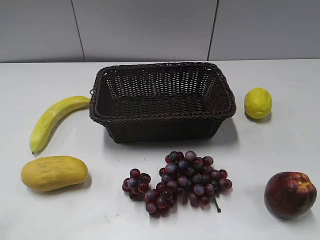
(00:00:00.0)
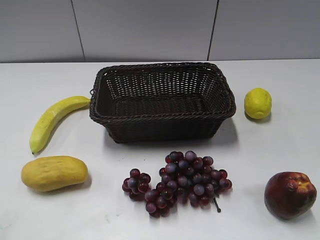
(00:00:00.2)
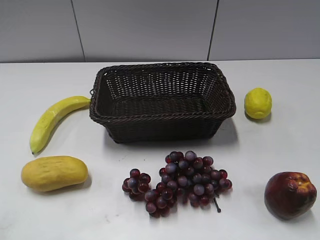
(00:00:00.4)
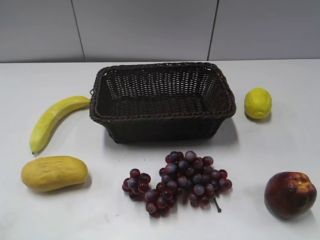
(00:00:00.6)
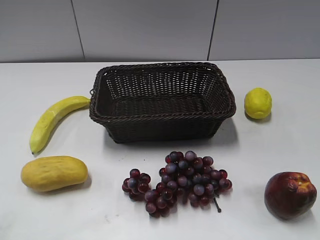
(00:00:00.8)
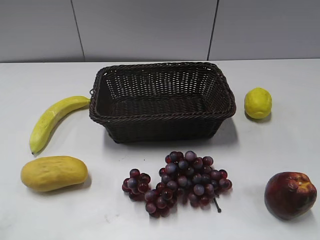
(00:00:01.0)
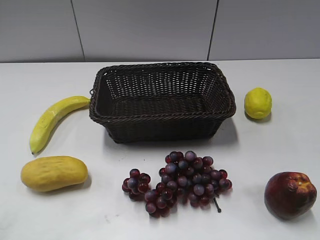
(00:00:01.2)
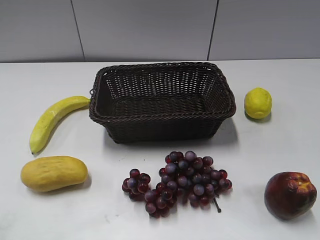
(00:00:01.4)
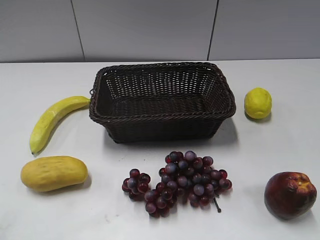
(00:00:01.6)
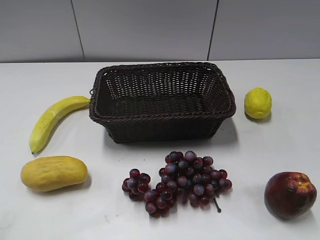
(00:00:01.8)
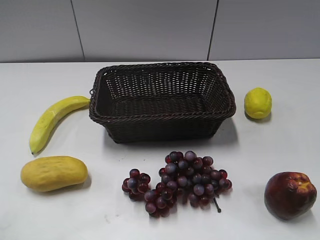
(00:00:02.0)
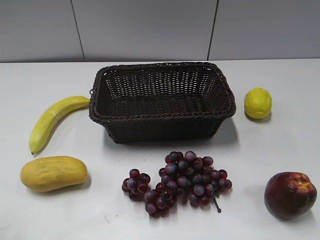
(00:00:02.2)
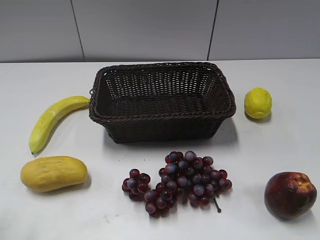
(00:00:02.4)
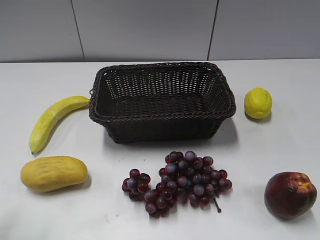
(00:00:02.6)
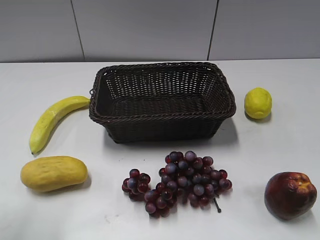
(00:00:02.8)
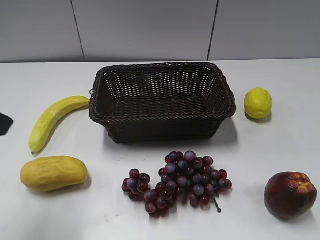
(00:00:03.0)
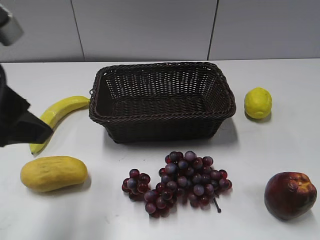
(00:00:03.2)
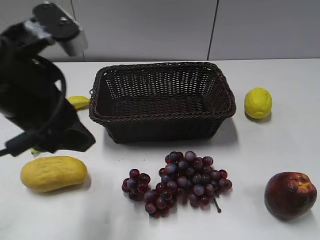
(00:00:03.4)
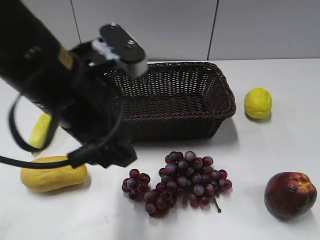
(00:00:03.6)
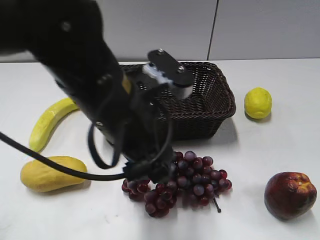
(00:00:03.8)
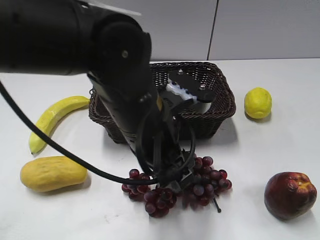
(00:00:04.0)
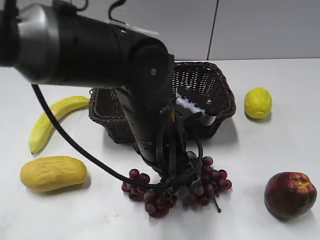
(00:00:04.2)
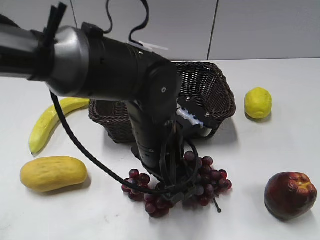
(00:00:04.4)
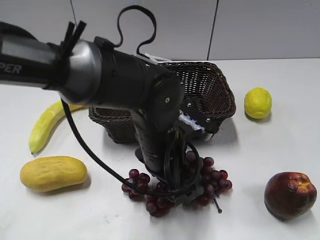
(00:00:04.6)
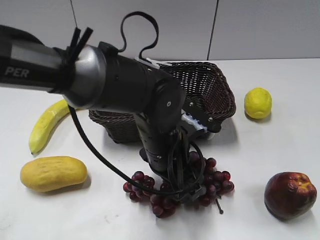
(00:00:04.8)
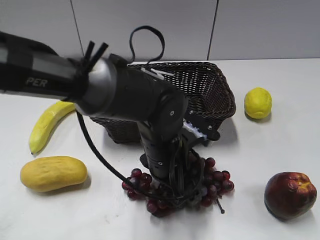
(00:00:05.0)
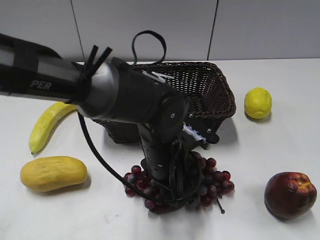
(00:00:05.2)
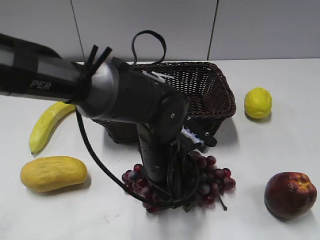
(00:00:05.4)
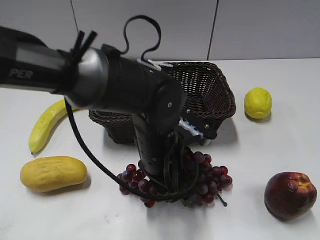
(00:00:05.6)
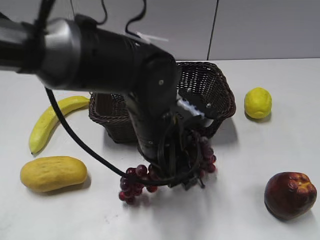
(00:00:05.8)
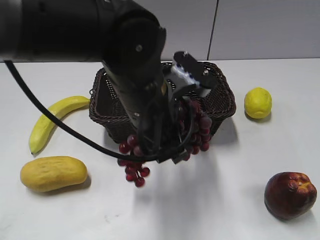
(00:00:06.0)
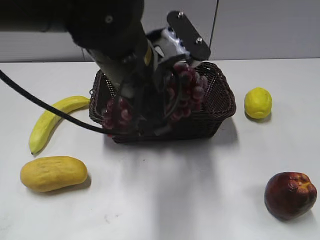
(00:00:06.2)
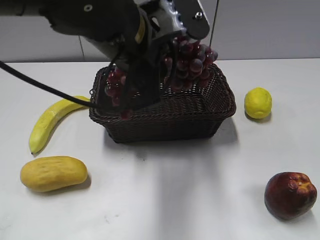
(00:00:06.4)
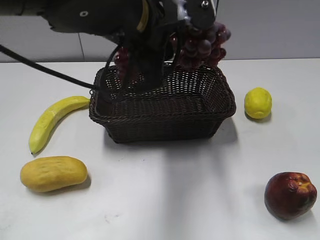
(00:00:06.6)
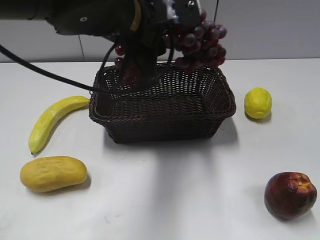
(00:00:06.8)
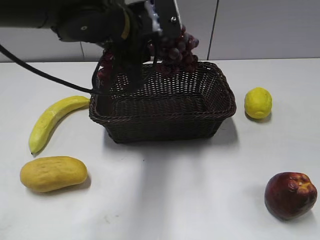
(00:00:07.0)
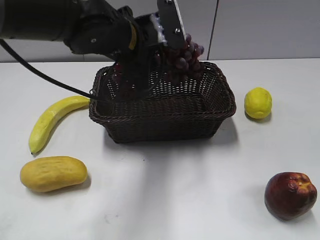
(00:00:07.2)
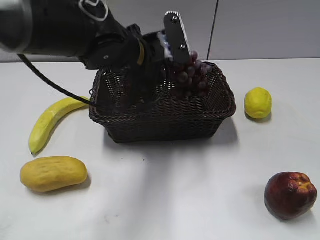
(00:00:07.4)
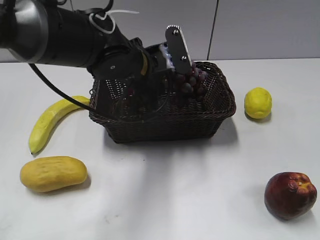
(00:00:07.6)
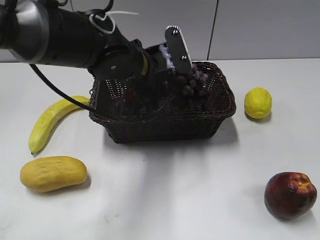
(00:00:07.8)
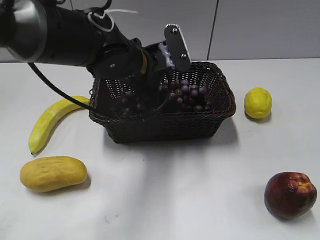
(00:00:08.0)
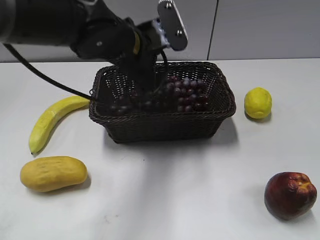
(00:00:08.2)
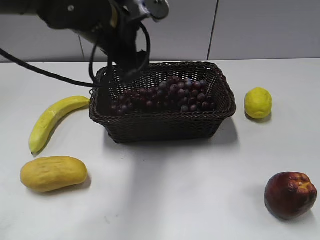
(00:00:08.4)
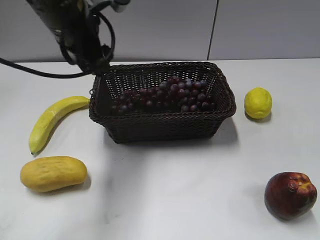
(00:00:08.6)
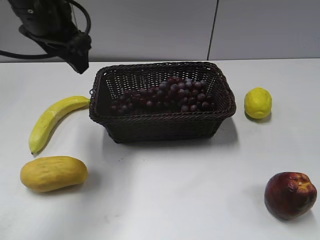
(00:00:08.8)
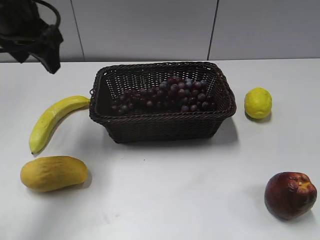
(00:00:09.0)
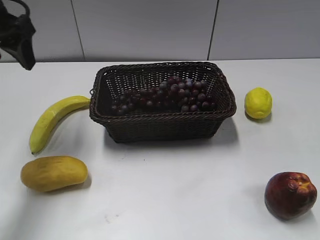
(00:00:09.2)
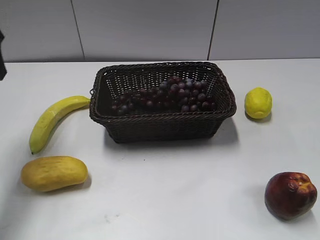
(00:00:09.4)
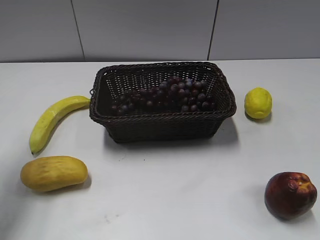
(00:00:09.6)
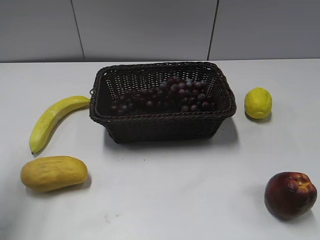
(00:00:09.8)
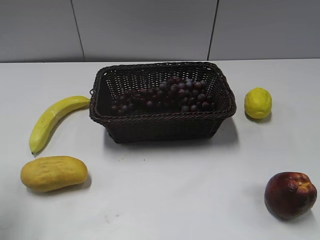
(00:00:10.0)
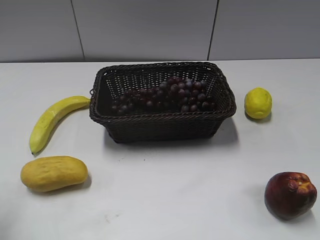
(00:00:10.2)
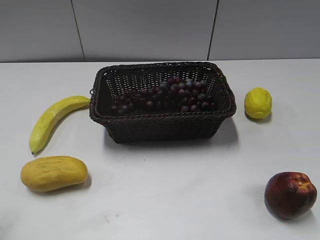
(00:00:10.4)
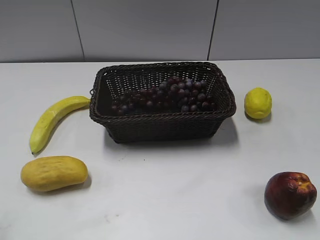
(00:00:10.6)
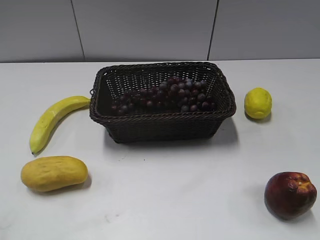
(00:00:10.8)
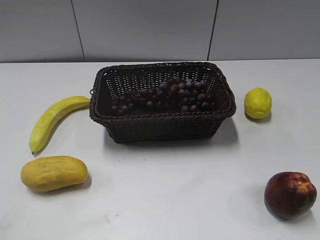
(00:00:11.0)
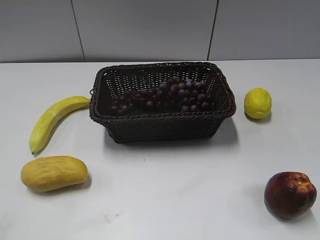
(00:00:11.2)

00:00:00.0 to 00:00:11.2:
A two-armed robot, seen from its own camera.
Step, 00:00:03.0 to 00:00:05.2: Grasp the grape with left gripper.
Step, 00:00:05.4 to 00:00:08.0: Place the grape in the basket with left gripper.
00:00:01.6 to 00:00:03.2: The left gripper is displaced forward and to the right by some 20 cm.
00:00:03.2 to 00:00:04.8: The left gripper travels to the right and downward by about 25 cm.
00:00:04.8 to 00:00:06.4: The left gripper goes about 15 cm upward, and closes its fingers.
00:00:06.4 to 00:00:08.0: The left gripper shifts roughly 15 cm downward and forward, and opens up.
00:00:08.0 to 00:00:09.6: The left gripper heads to the left and upward, covering approximately 30 cm.
00:00:09.6 to 00:00:11.2: The left gripper heads backward, covering approximately 25 cm.

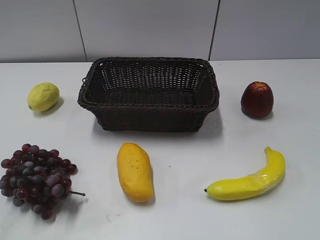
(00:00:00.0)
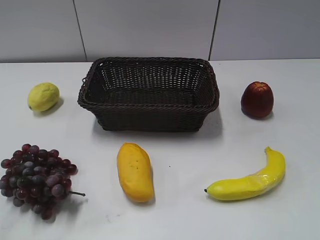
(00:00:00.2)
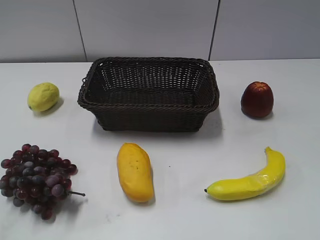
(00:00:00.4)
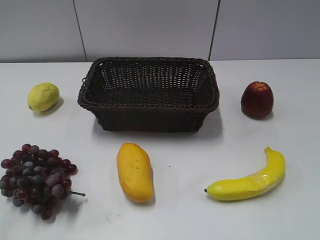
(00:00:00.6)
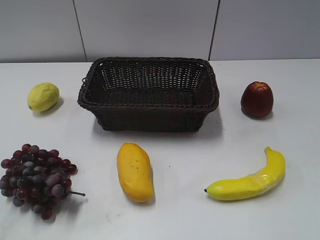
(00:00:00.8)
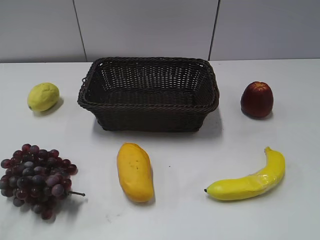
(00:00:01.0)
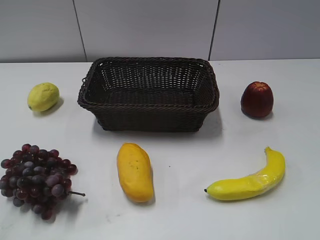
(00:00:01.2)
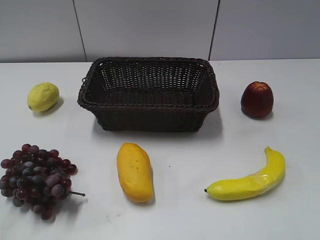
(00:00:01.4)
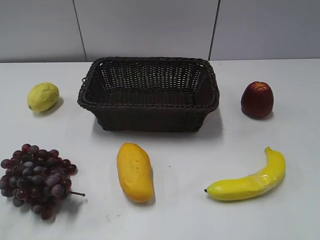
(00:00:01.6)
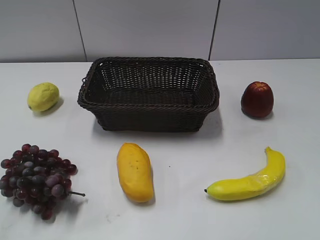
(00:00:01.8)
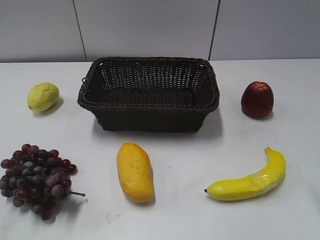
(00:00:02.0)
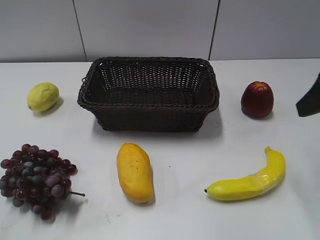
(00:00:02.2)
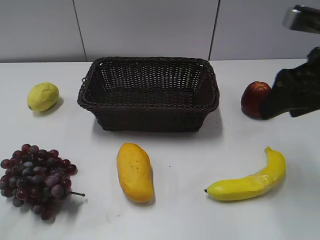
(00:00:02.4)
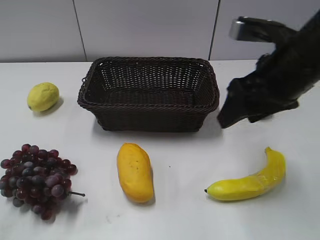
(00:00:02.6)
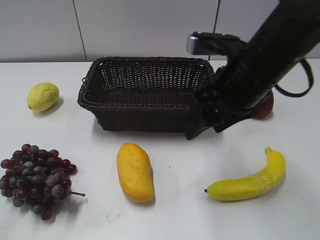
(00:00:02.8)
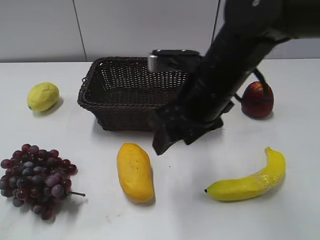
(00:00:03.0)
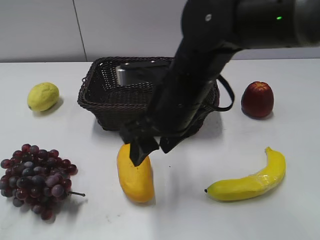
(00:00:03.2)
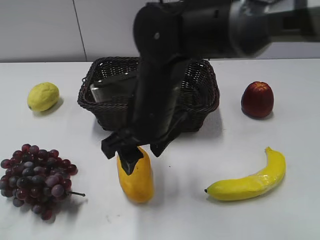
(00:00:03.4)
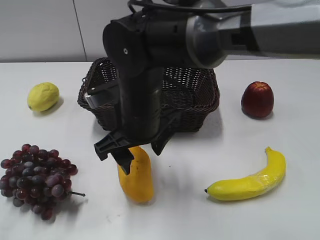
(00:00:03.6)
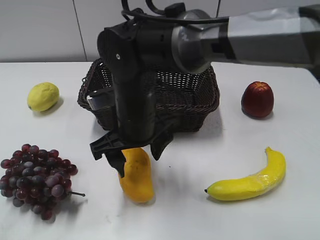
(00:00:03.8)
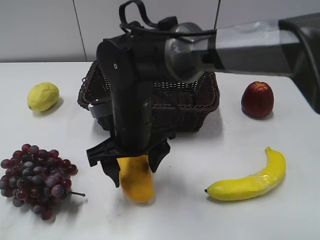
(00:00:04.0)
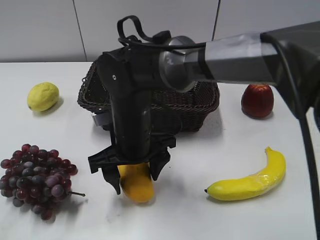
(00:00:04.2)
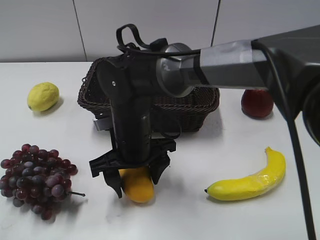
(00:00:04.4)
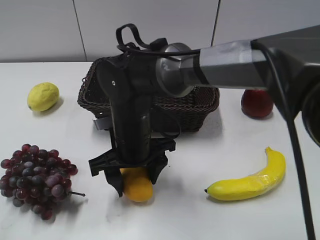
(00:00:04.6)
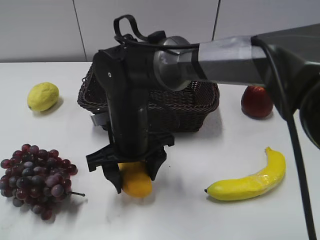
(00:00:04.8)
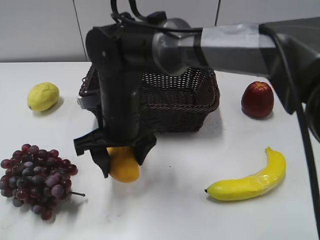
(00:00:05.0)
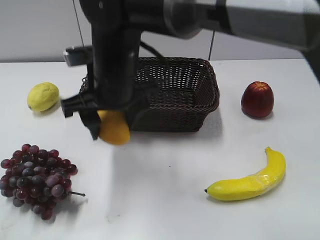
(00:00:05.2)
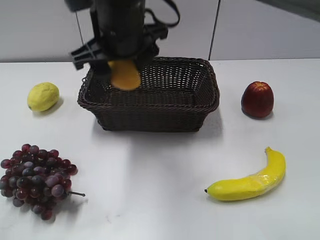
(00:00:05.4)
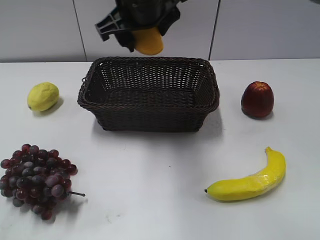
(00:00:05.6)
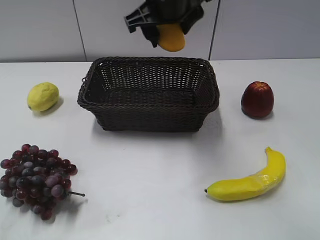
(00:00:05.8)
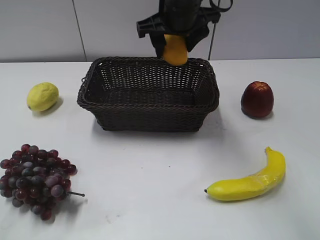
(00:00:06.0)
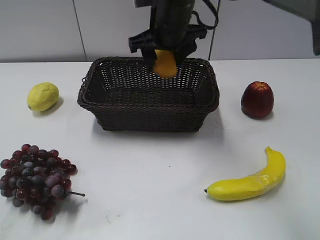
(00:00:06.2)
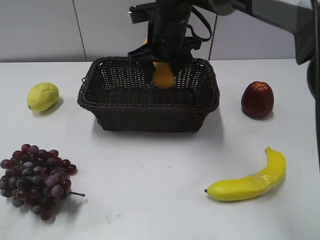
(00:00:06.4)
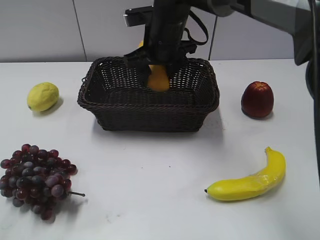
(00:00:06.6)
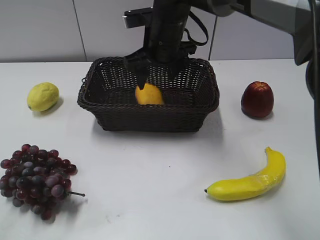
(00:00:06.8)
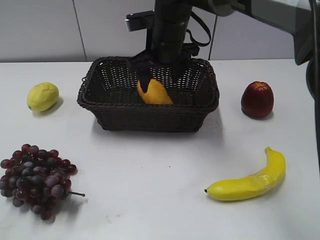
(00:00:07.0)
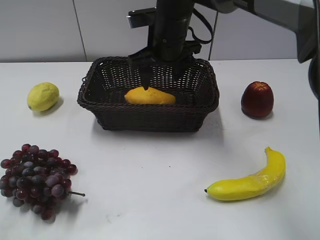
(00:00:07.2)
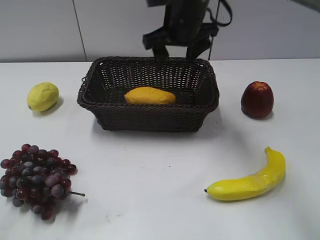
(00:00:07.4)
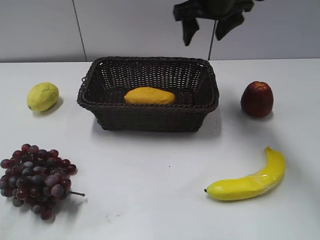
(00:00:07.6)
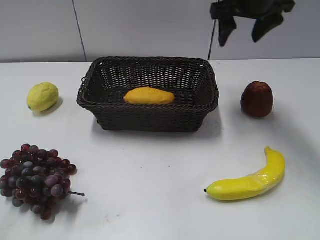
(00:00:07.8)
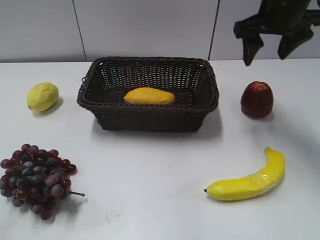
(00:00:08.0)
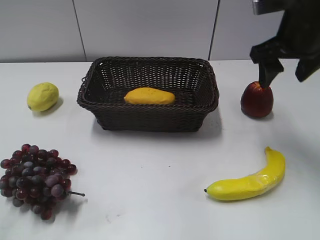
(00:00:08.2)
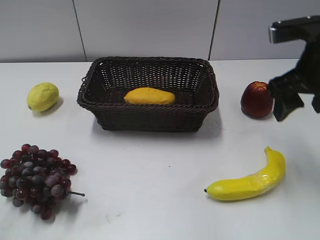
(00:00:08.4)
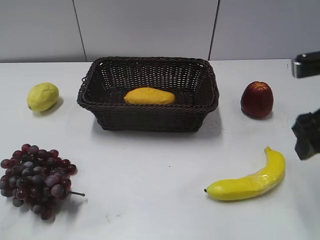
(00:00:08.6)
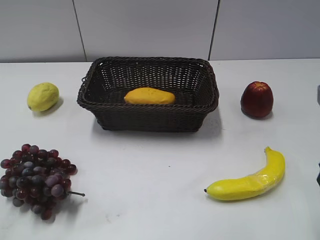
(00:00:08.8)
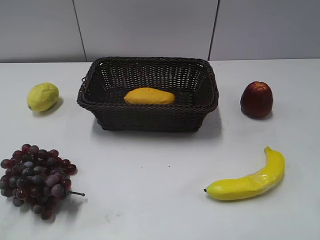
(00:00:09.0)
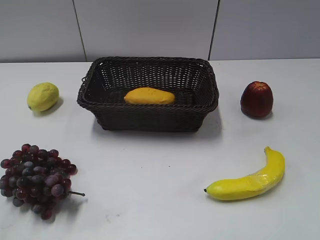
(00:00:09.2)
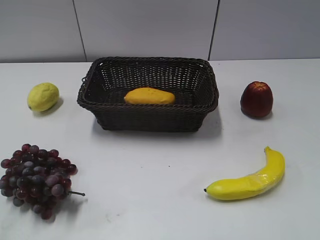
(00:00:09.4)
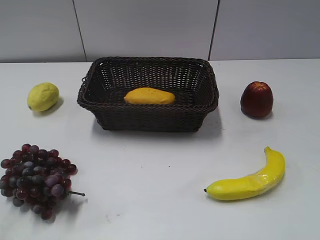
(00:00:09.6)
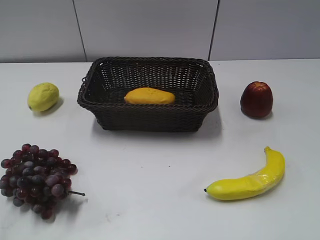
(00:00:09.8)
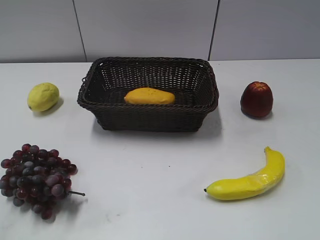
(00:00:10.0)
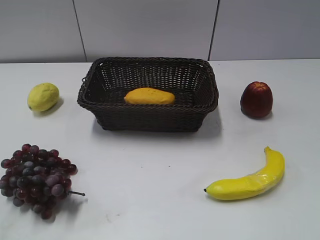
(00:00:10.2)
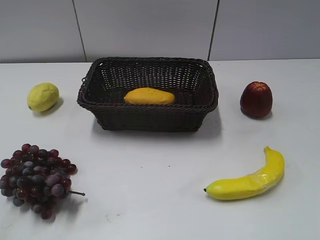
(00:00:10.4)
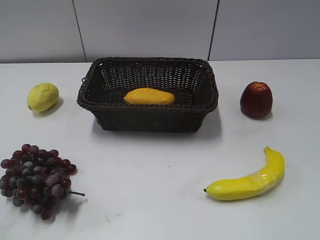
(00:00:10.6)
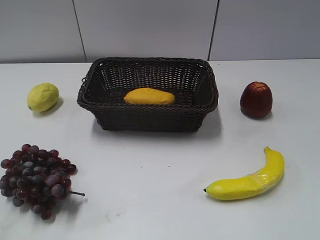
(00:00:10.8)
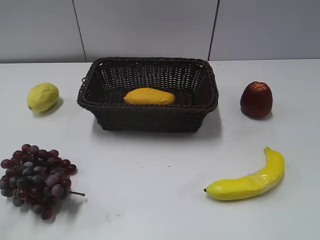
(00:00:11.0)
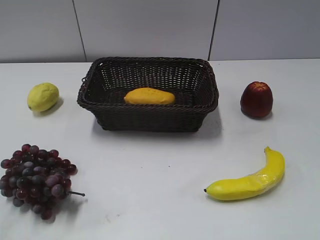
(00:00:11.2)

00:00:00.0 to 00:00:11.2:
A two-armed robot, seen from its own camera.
Step, 00:00:02.2 to 00:00:04.4: Grasp the mango with right gripper.
Step, 00:00:04.6 to 00:00:07.0: Place the mango in the basket with right gripper.
00:00:01.6 to 00:00:03.2: The right gripper travels to the left and forward by approximately 30 cm.
00:00:03.2 to 00:00:04.8: The right gripper moves downward and to the left, about 10 cm, and opens, then closes again.
00:00:04.8 to 00:00:06.4: The right gripper moves forward, upward and to the right, some 20 cm.
00:00:06.4 to 00:00:08.0: The right gripper heads to the right, covering roughly 20 cm, and opens its fingers.
00:00:08.0 to 00:00:09.6: The right gripper goes roughly 30 cm backward.
